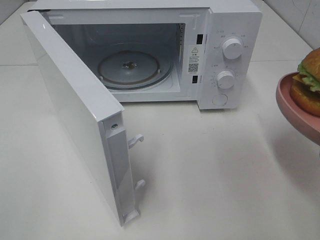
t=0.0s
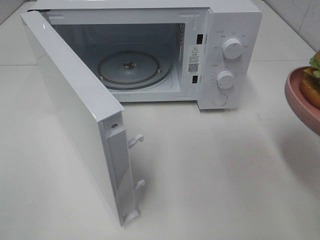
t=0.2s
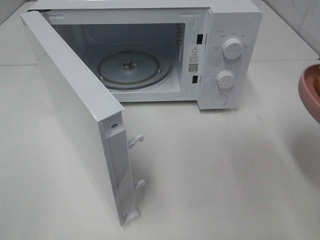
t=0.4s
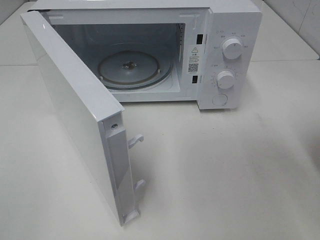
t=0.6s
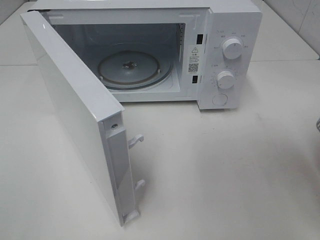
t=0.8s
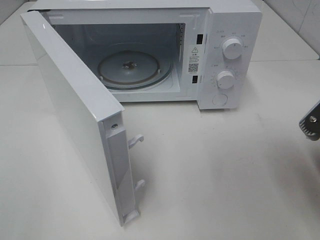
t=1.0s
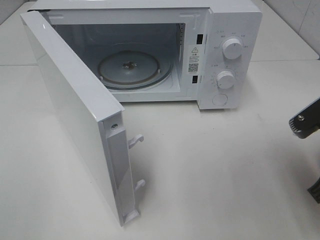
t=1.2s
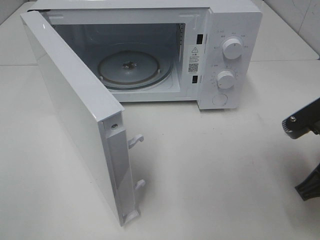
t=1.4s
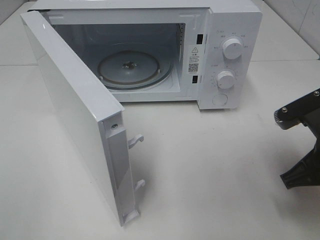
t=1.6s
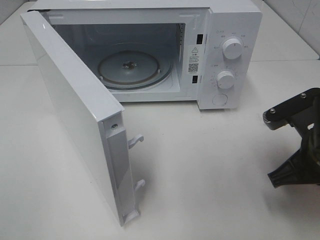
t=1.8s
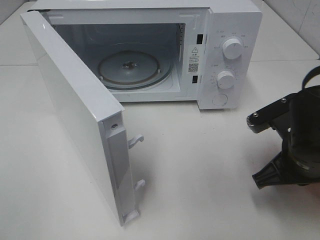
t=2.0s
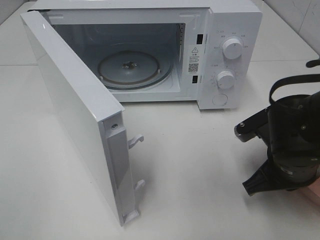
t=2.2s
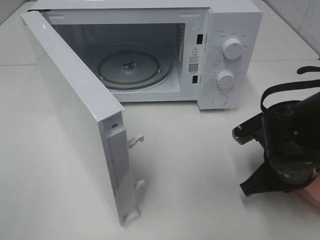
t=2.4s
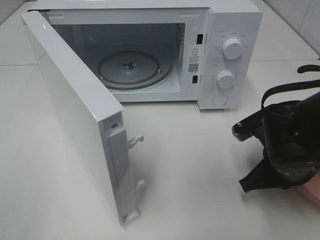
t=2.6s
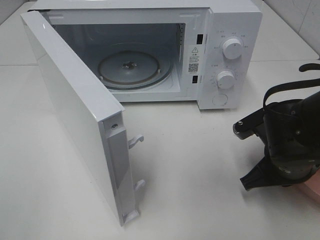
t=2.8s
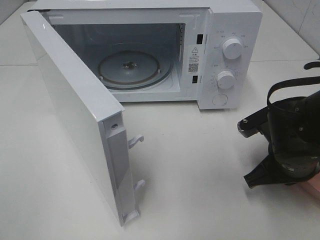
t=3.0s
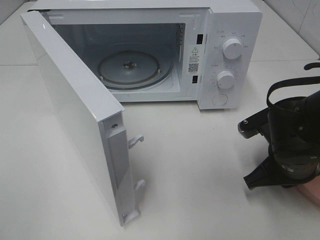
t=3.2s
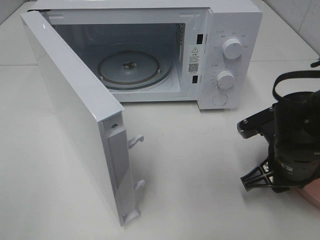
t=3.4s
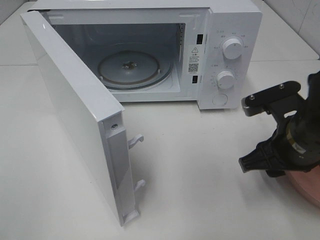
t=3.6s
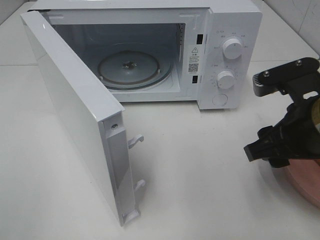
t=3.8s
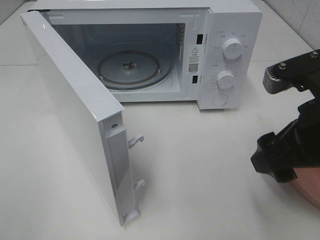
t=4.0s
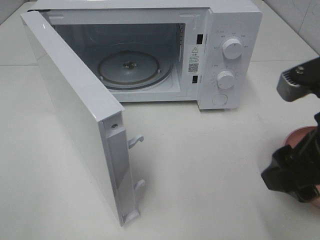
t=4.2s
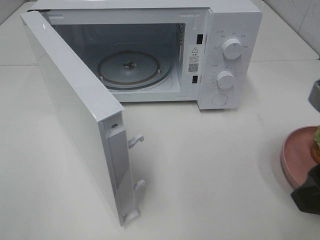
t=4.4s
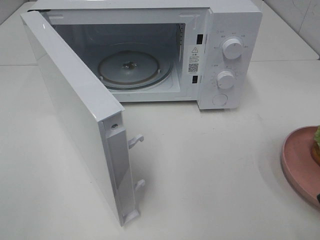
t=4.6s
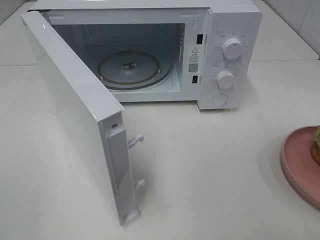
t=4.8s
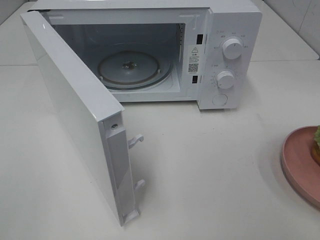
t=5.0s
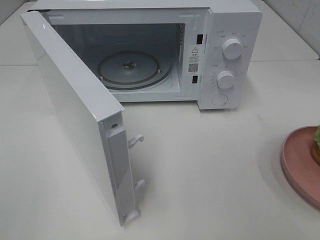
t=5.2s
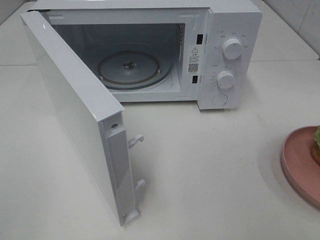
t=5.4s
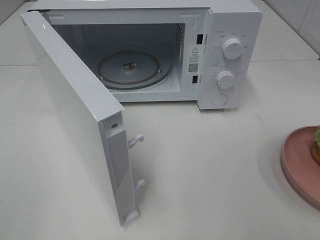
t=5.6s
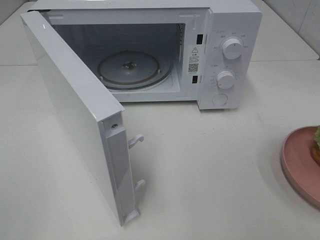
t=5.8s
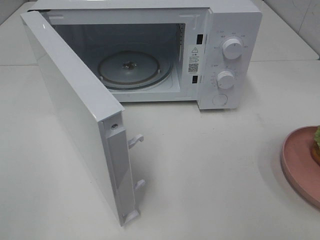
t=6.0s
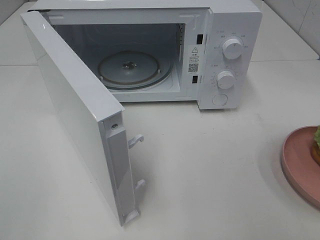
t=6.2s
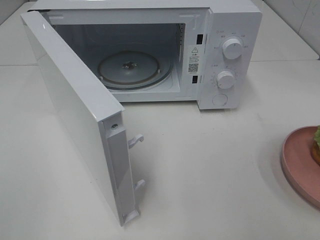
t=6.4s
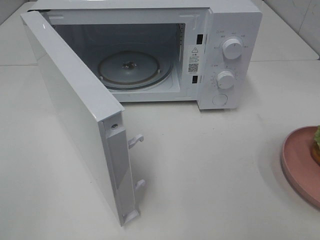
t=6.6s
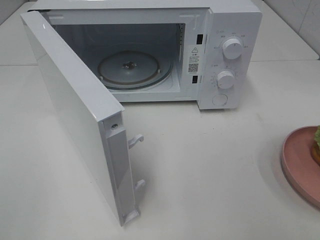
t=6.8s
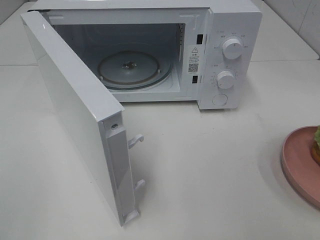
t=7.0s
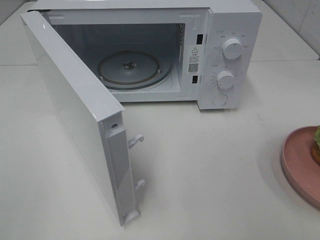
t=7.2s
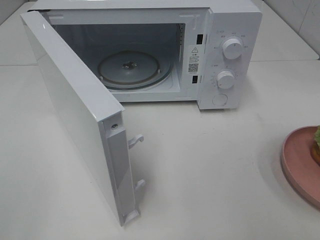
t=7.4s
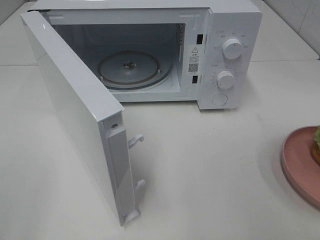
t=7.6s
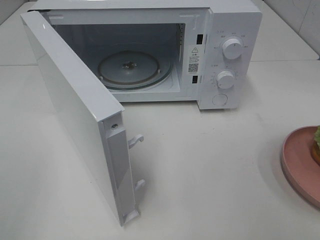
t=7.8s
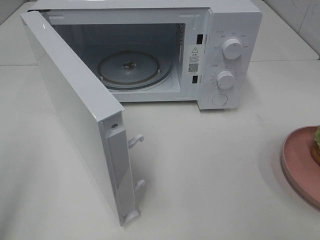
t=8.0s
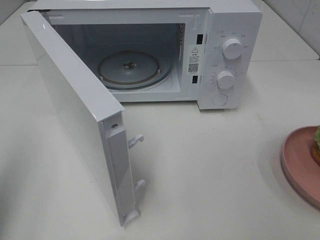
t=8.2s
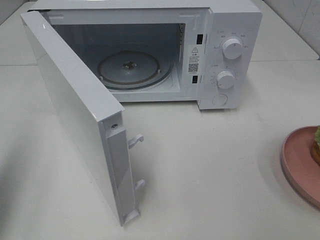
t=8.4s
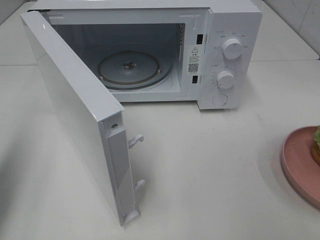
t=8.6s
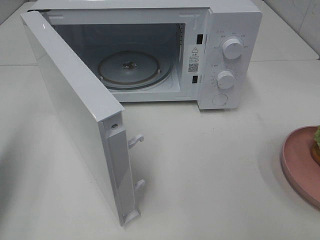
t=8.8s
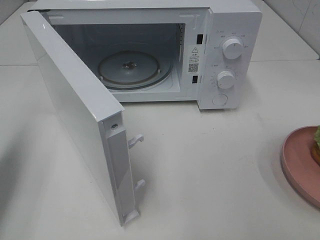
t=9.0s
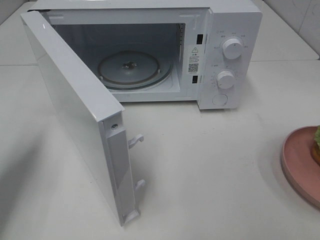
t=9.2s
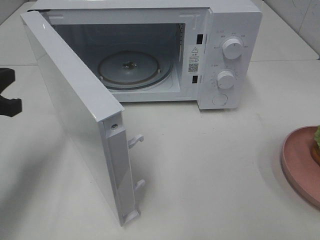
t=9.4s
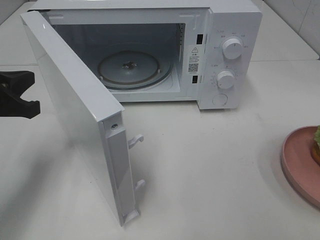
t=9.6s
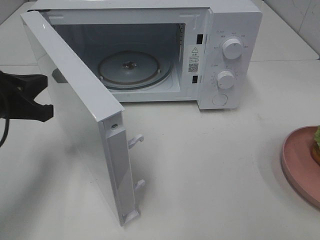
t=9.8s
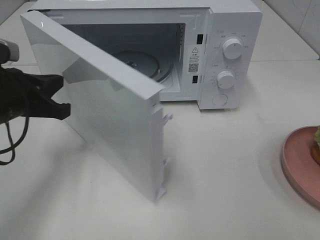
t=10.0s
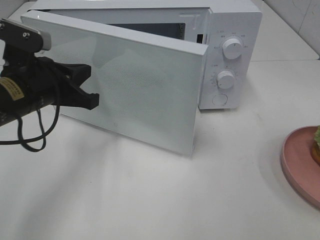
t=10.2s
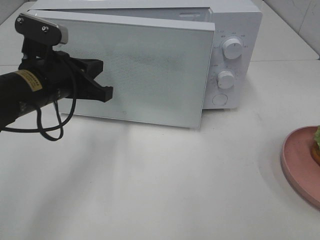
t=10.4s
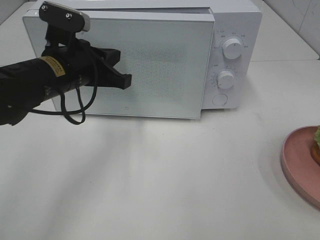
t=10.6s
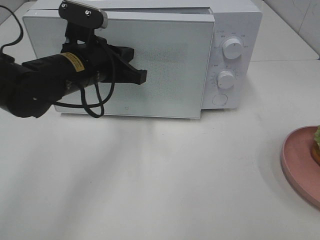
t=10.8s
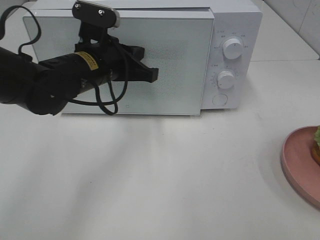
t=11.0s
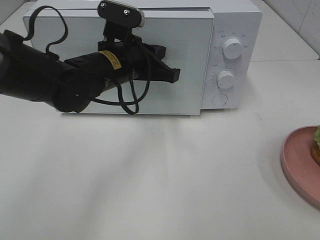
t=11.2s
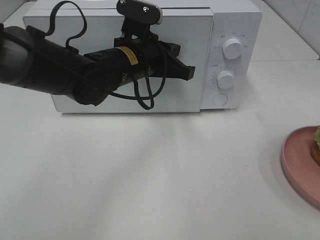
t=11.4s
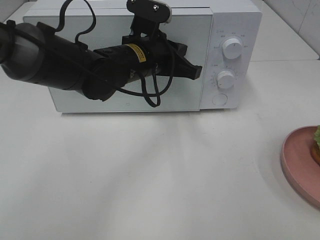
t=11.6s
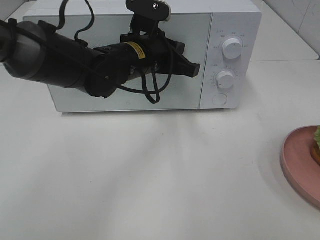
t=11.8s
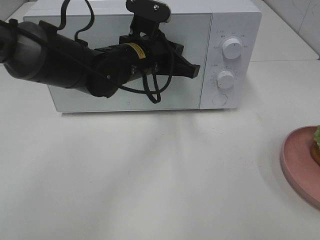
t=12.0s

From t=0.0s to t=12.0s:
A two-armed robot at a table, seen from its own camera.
Task of the whole recording: Heat the burger.
Step, from t=0.0s to t=3.0s: Right hand: place the plate on the table.
From t=0.0s to t=1.6s: The right gripper goes roughly 10 cm downward and forward.
From t=1.6s to t=3.0s: The right gripper heads downward, covering approximately 5 cm.
From t=3.0s to t=4.4s: The right gripper heads upward and backward, covering about 20 cm, and opens its fingers.
From t=4.4s to t=6.0s: The right gripper heads backward and to the right, covering roughly 15 cm.
From t=7.6s to t=9.0s: The left gripper shifts roughly 20 cm forward, and closes its fingers.
From t=9.0s to t=10.4s: The left gripper goes about 20 cm to the right and forward.
From t=10.4s to t=12.0s: The left gripper travels to the right and forward by roughly 15 cm.

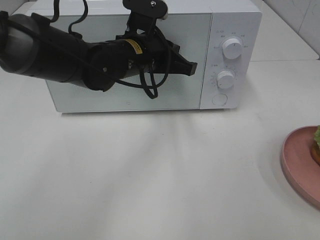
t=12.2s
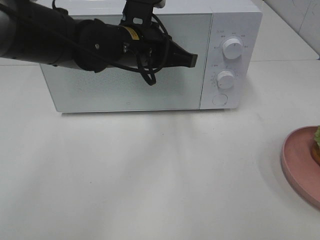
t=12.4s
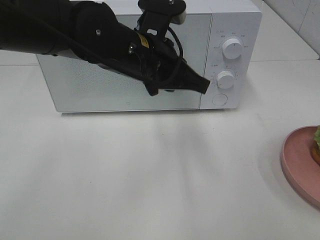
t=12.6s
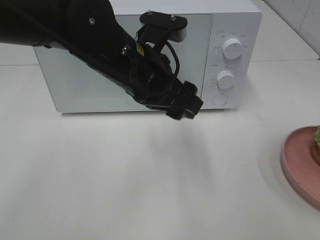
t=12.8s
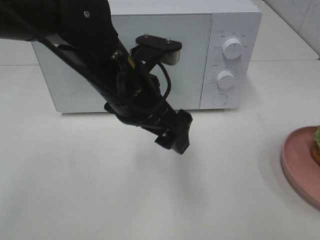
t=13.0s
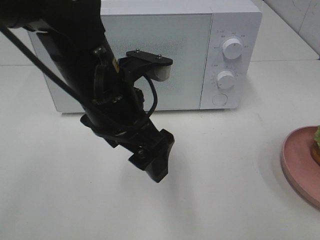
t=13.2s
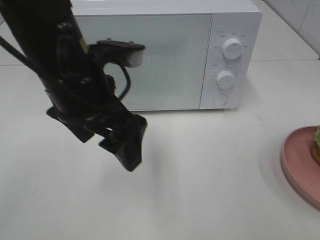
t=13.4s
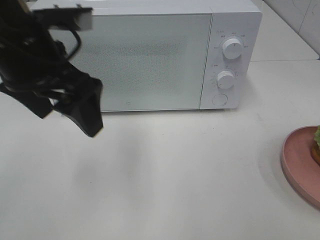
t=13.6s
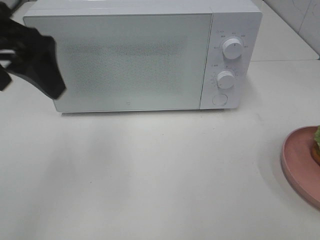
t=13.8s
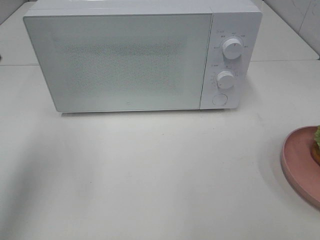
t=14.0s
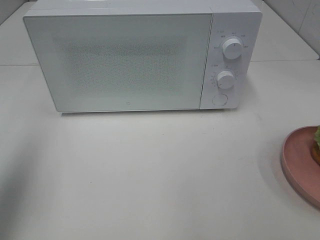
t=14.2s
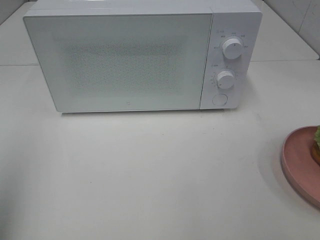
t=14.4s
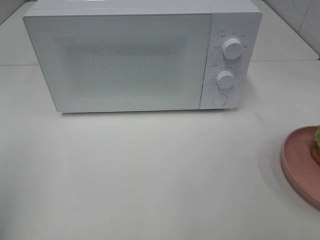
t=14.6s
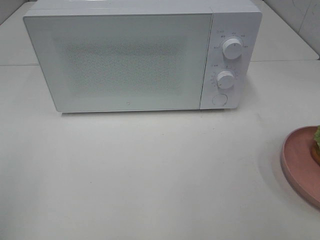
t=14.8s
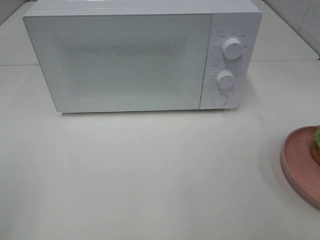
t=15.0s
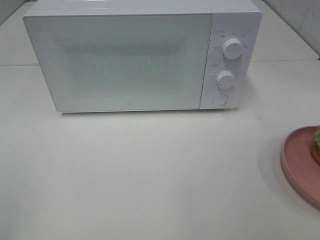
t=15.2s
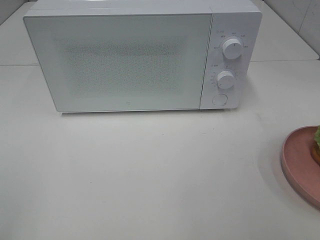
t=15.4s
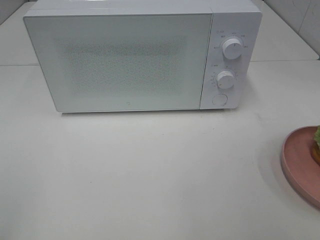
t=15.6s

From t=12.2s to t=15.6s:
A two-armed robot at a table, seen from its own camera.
Task of the whole recording: Heat the burger.
From t=12.2s to t=13.8s: The left gripper moves to the left, upward and backward, about 25 cm, and opens.
From t=13.8s to t=15.6s: The left gripper travels backward and to the left by some 30 cm.

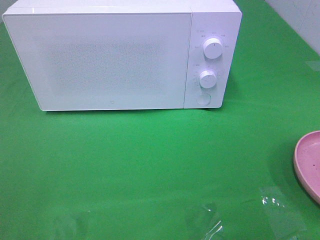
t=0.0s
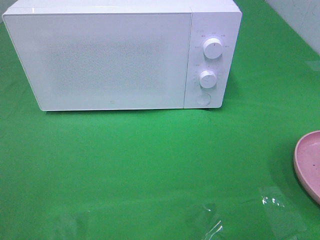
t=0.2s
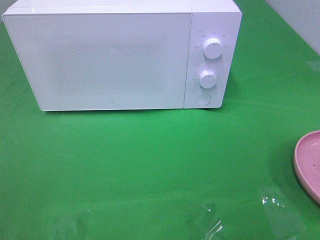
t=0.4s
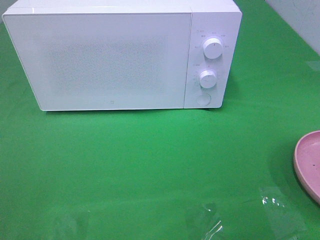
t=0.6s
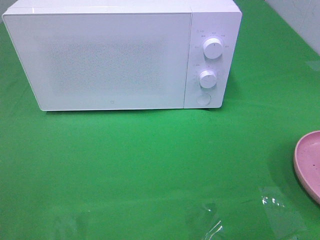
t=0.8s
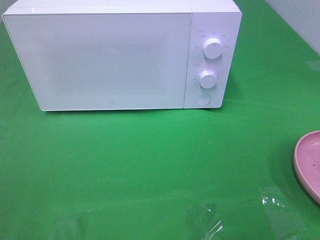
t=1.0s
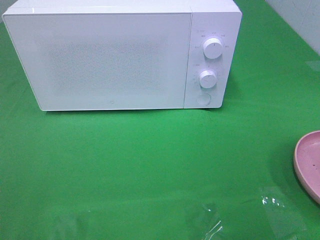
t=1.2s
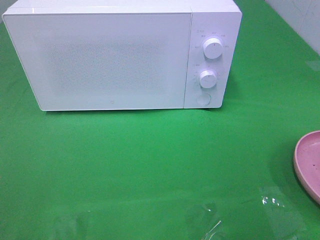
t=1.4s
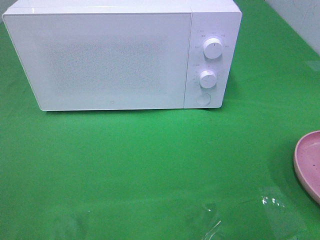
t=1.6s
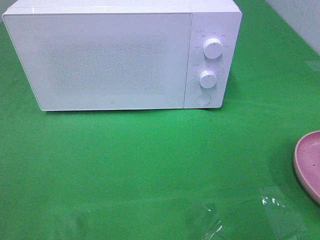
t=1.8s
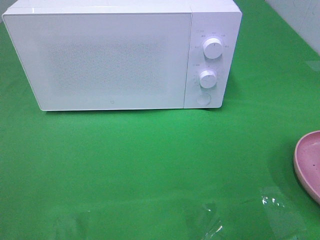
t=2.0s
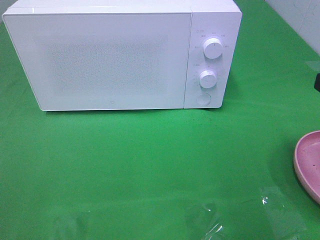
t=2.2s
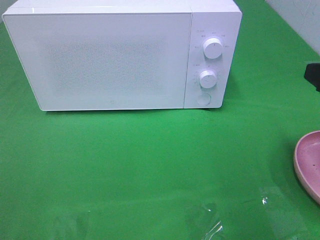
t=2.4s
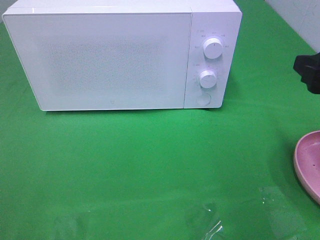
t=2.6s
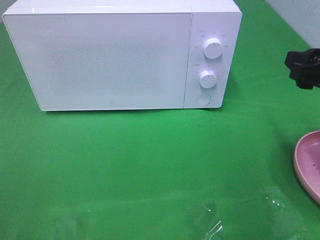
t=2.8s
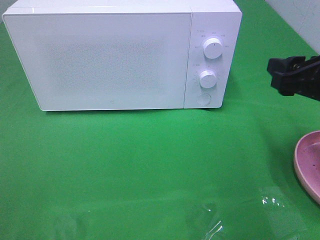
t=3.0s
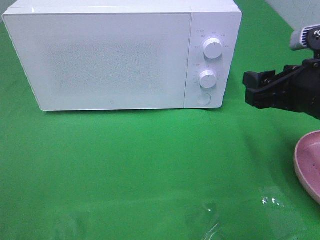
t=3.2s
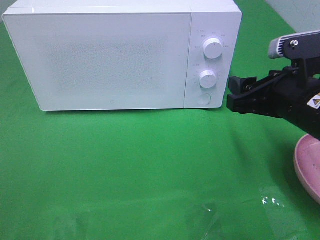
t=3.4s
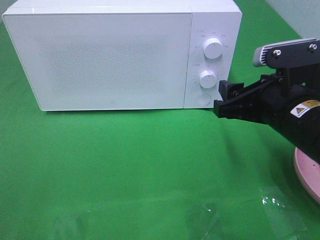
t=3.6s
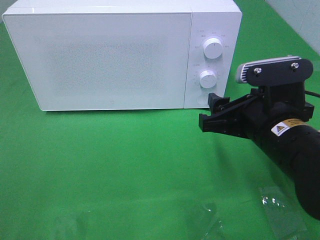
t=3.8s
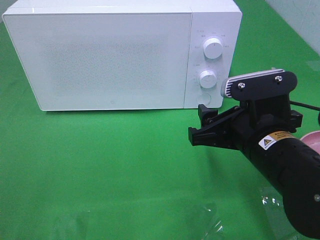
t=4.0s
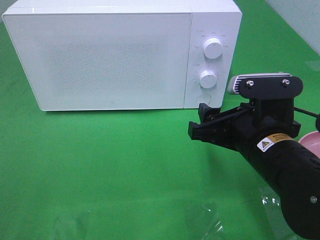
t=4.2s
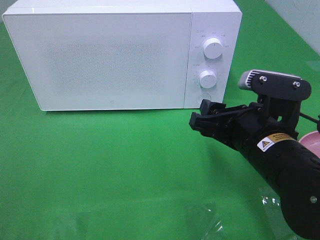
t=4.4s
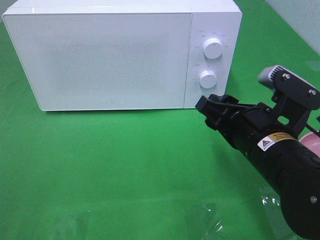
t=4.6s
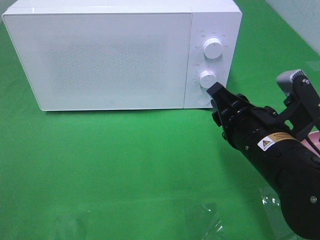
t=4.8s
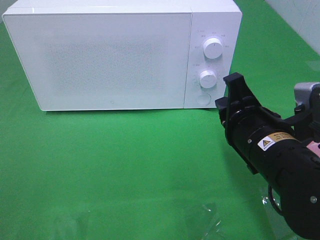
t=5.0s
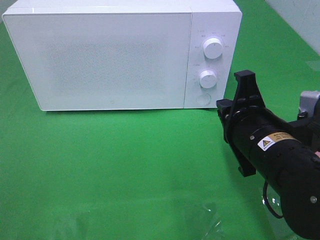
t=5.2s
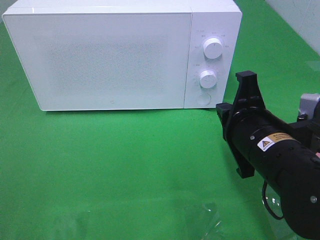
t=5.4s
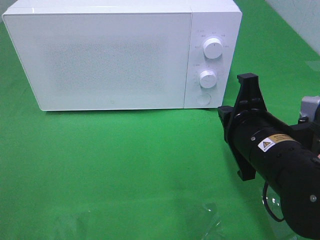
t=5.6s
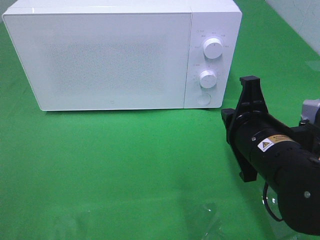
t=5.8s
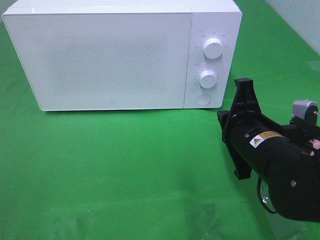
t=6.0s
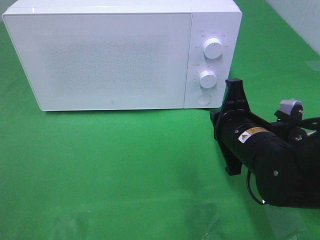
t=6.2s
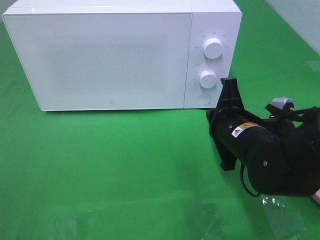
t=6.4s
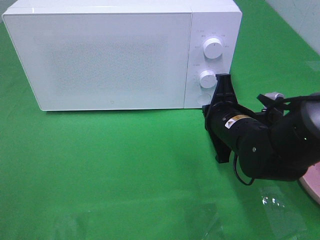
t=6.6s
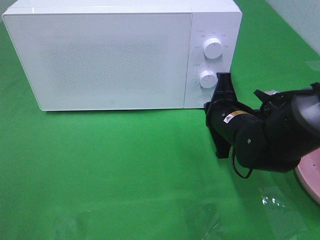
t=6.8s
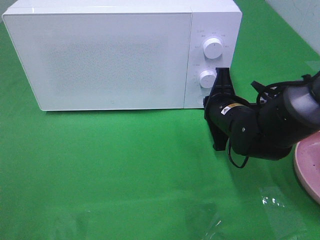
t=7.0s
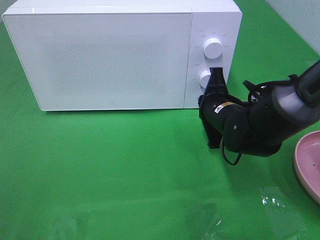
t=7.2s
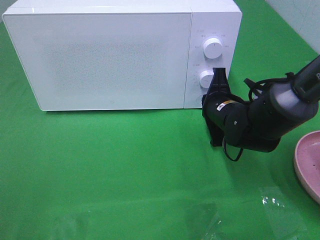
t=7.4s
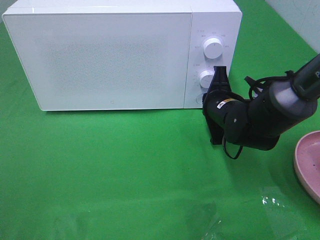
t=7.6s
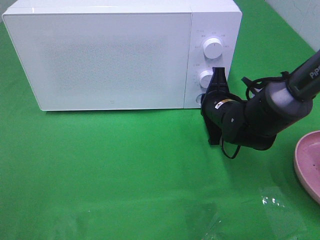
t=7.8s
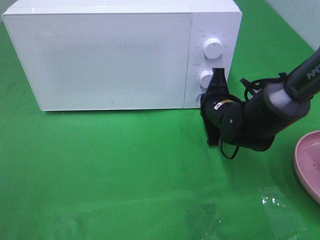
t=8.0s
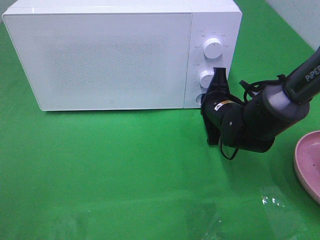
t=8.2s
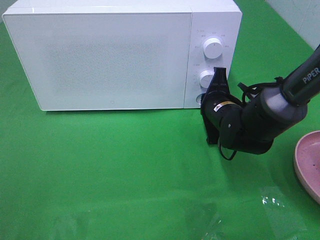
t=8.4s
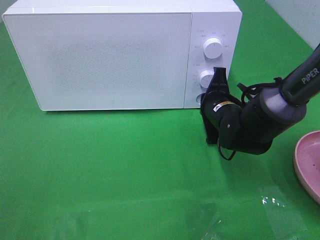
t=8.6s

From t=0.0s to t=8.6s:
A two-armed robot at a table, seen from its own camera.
Task of the whole recording: Heat the burger.
From t=1.4s to t=2.8s: The right gripper is displaced forward by about 15 cm.
From t=2.8s to t=4.4s: The right gripper goes some 15 cm to the left and downward.
From t=4.4s to t=5.8s: The right gripper closes up.
From t=5.8s to t=7.2s: The right gripper moves forward and downward, some 15 cm.
From t=7.2s to t=8.6s: The grippers make only small movements.
